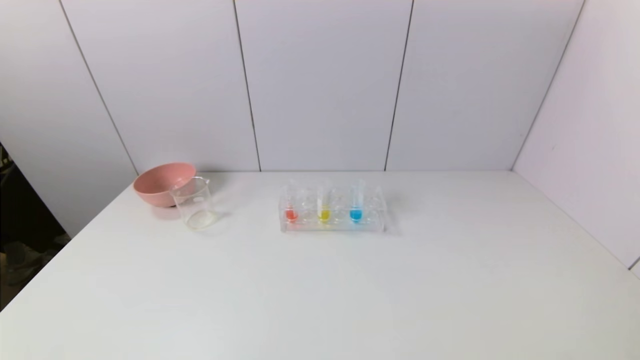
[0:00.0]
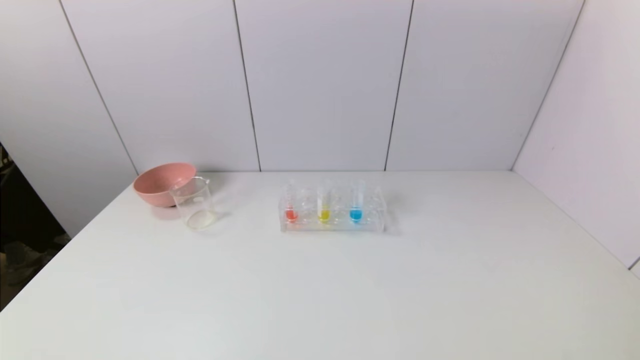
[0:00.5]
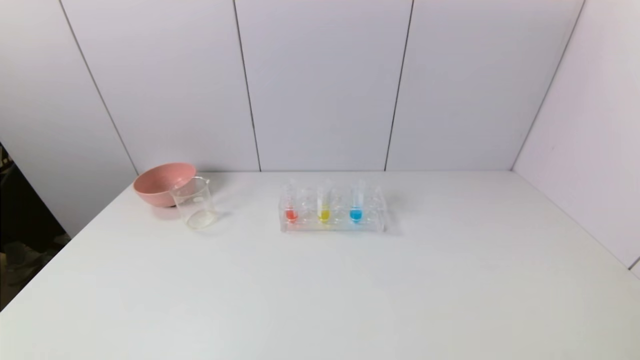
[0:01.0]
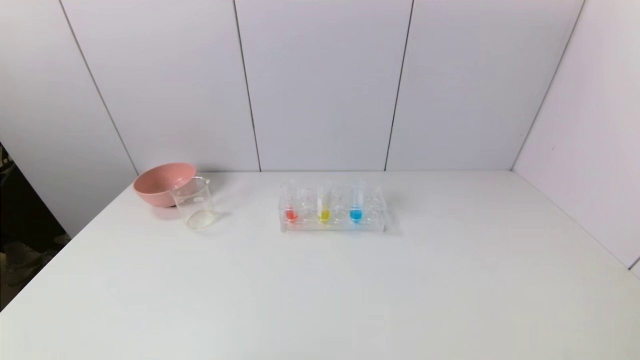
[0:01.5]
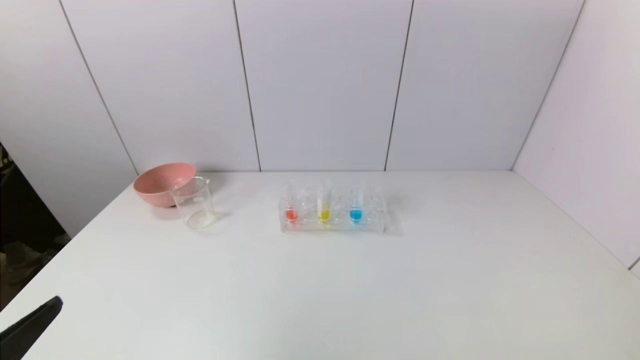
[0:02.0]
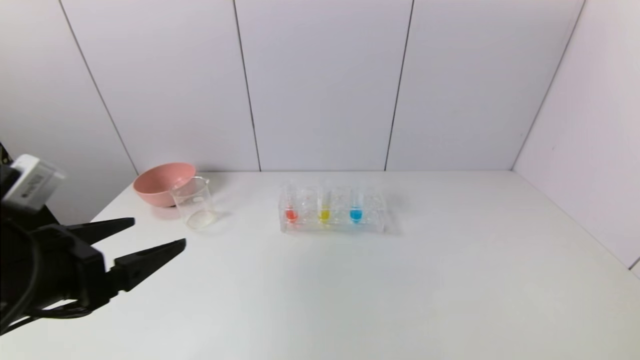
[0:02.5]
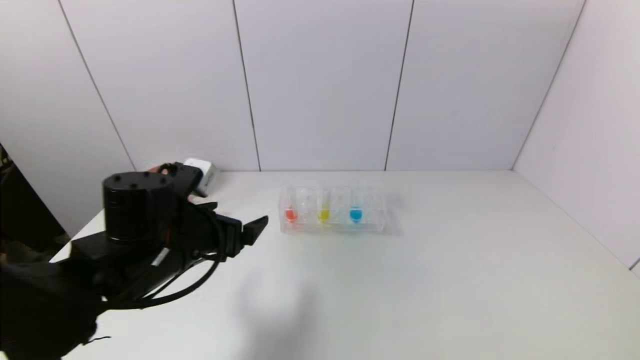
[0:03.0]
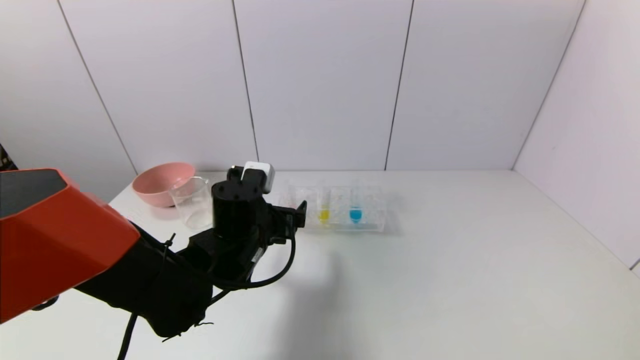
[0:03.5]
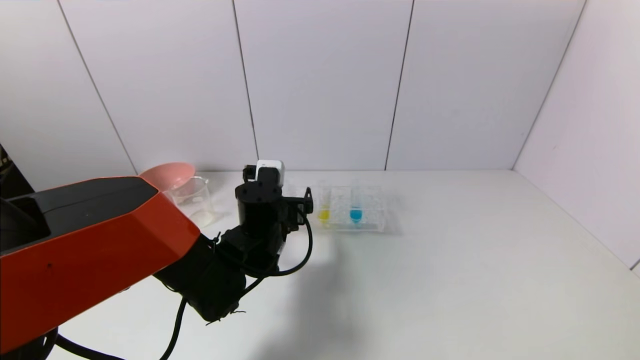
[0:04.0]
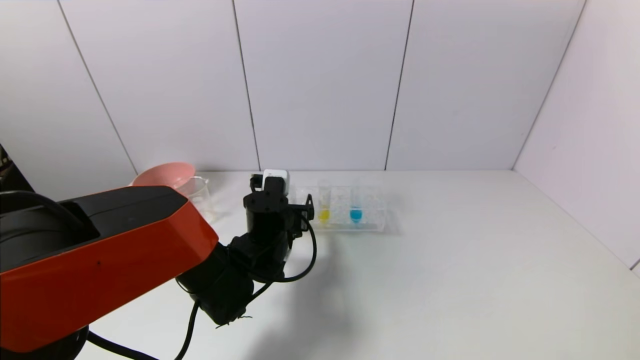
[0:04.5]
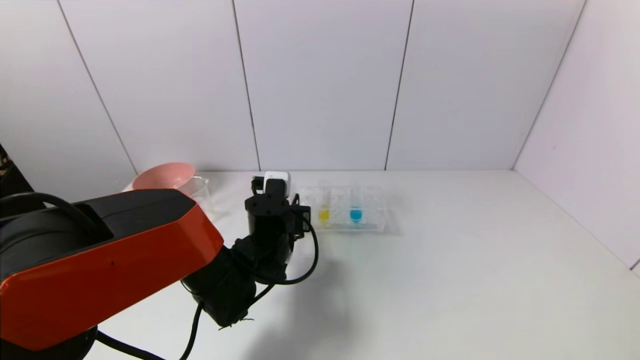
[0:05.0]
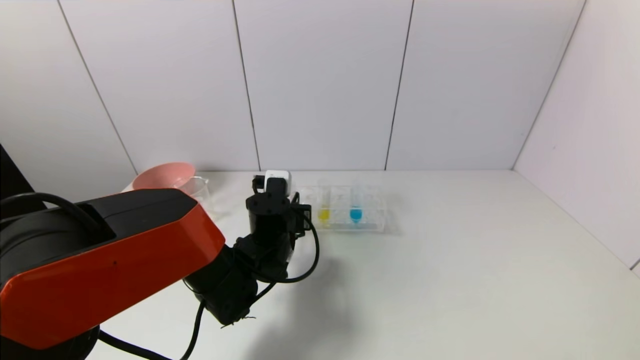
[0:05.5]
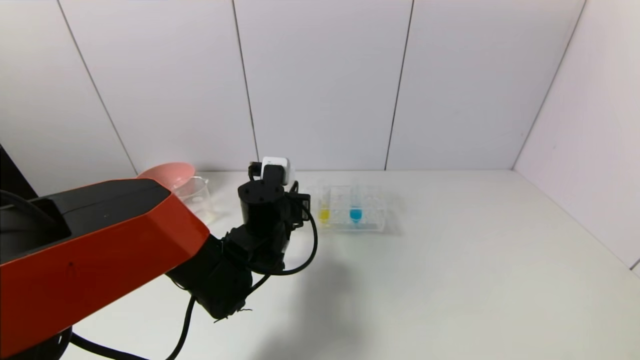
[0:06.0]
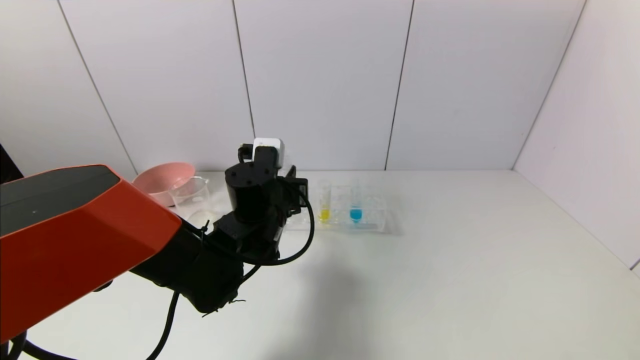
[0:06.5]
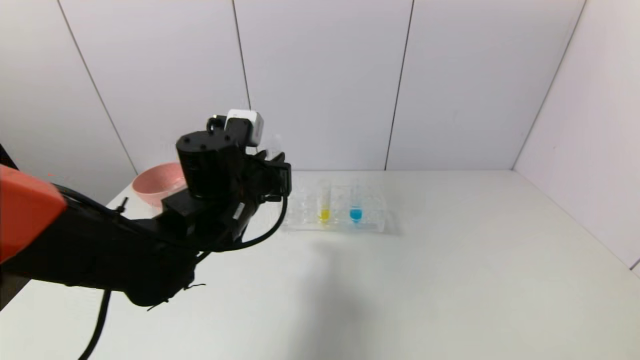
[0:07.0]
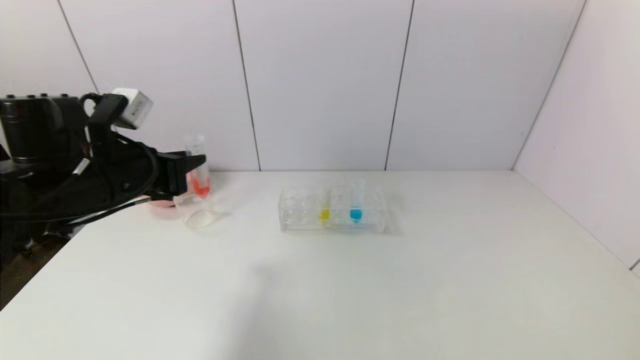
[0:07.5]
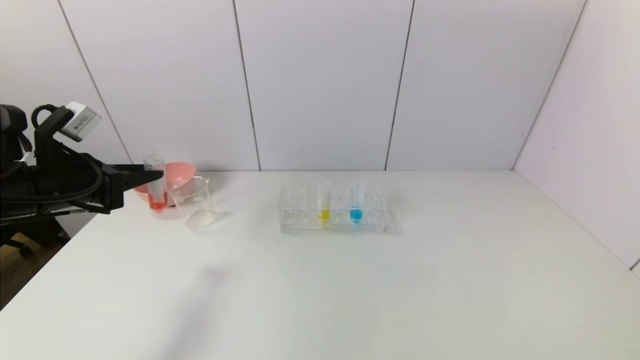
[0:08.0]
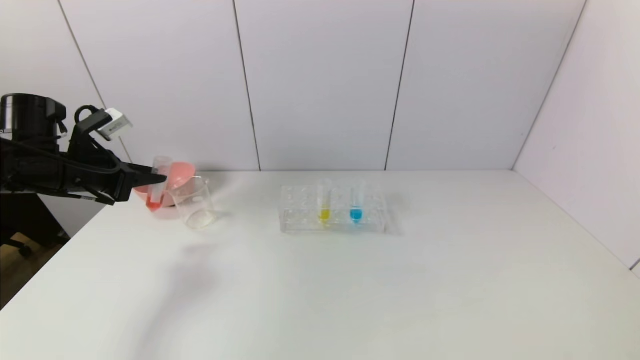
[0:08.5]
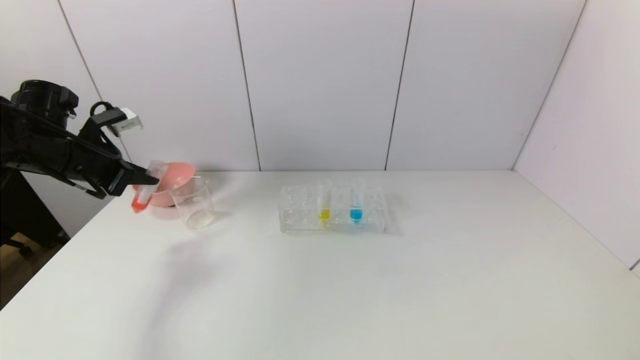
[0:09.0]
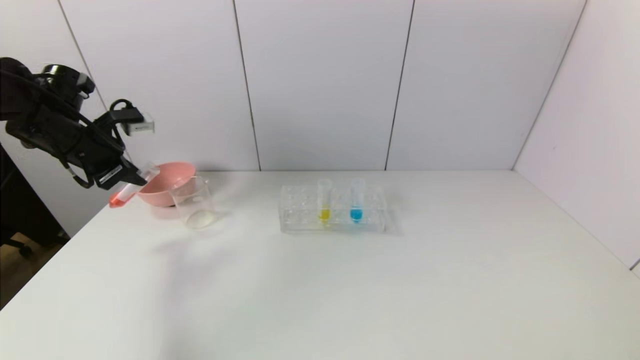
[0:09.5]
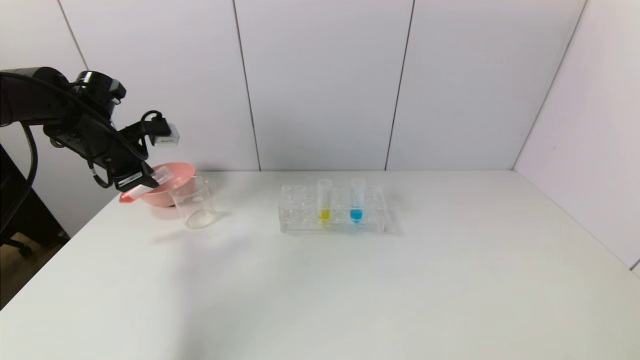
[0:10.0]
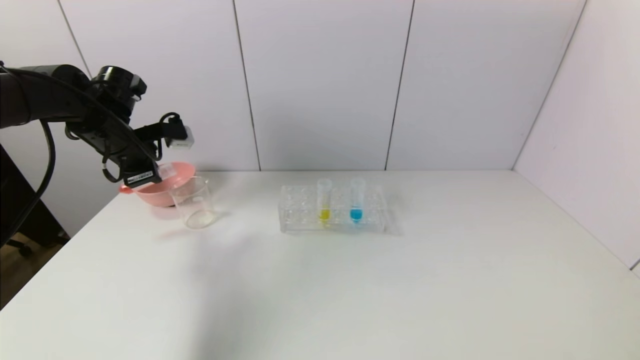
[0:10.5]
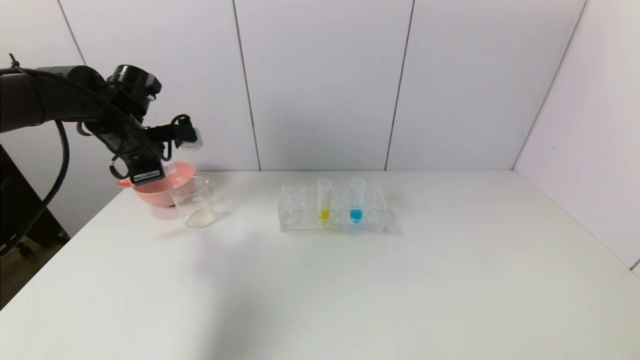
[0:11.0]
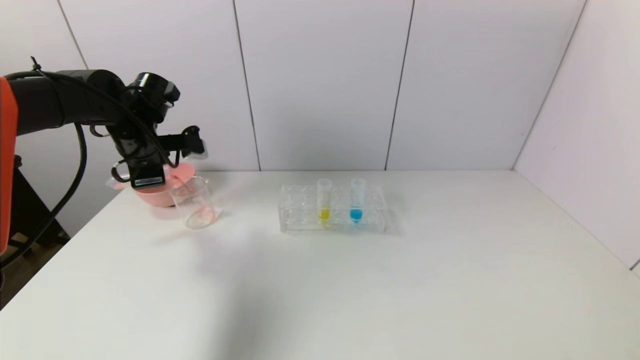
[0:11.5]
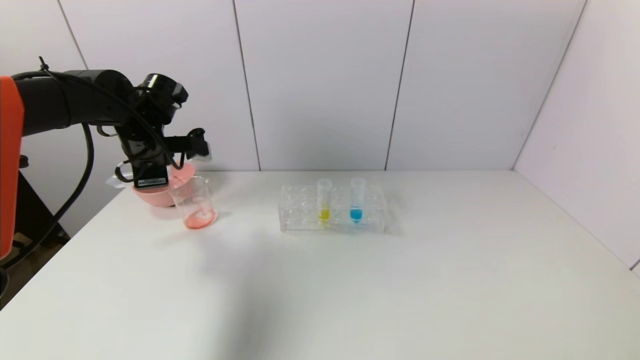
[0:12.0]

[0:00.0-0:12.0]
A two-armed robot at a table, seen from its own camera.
Task of the whole recording: pick up the test tube with yellow pigment and the test tube with red pigment by grippers and pour them into the beaker.
Step, 0:00.0 to 0:05.0: Grasp the red reagent with the left gripper.
0:00.0 to 0:02.0: The left gripper moves upward and forward, roughly 15 cm.
0:02.0 to 0:04.0: The left gripper goes about 35 cm forward and to the right.
0:04.0 to 0:06.0: The left gripper closes its fingers.
0:06.0 to 0:08.0: The left gripper travels to the left and upward by approximately 30 cm.
0:08.0 to 0:10.0: The left gripper heads forward, covering about 10 cm.
0:10.0 to 0:12.0: The left gripper travels to the right by about 5 cm.

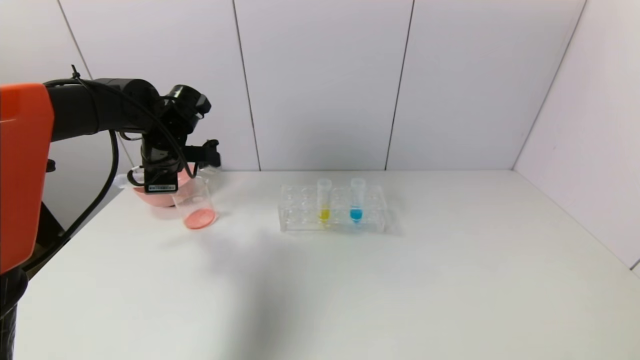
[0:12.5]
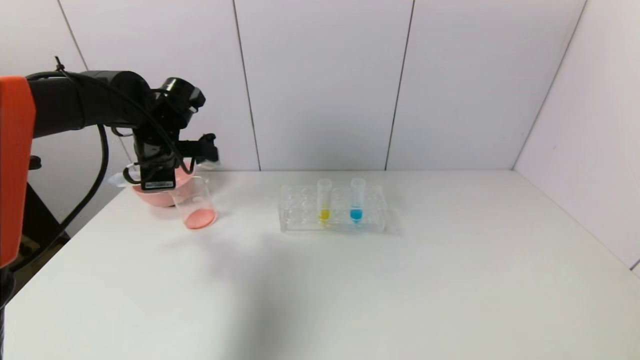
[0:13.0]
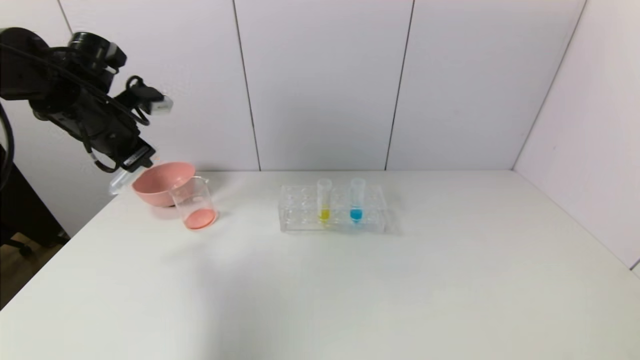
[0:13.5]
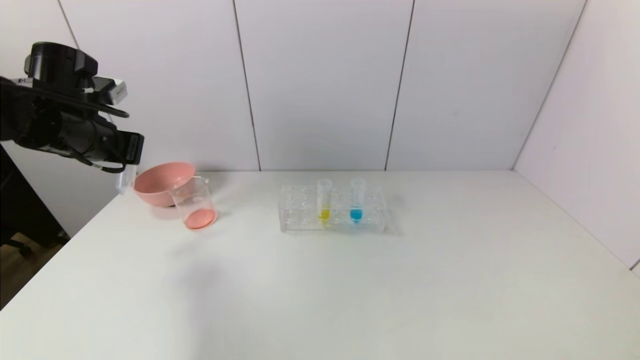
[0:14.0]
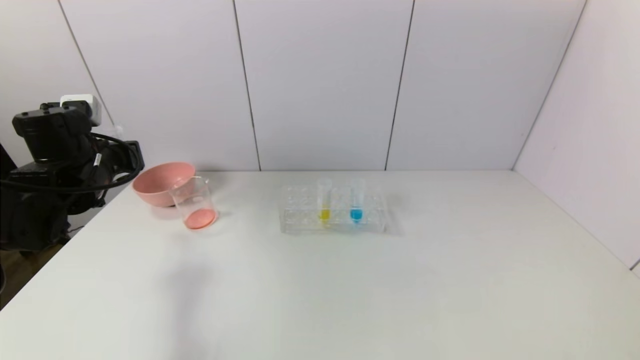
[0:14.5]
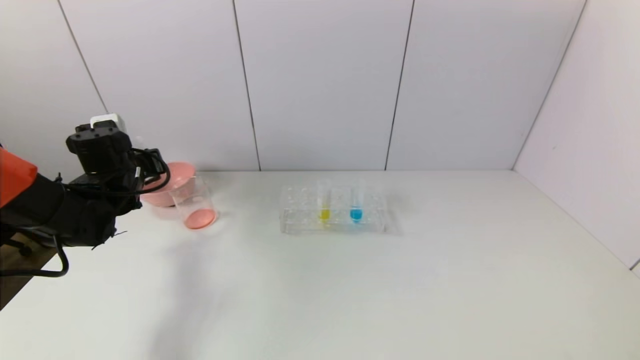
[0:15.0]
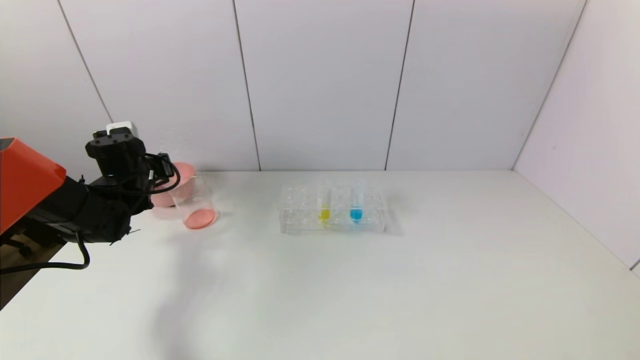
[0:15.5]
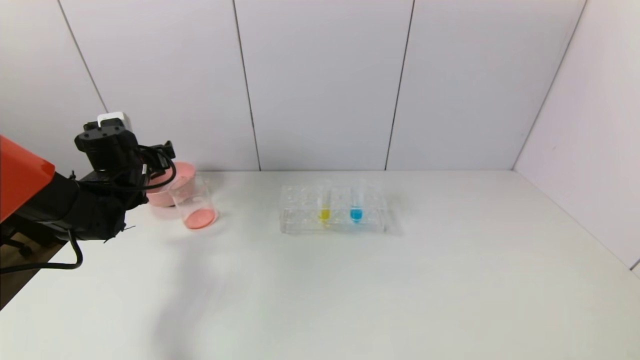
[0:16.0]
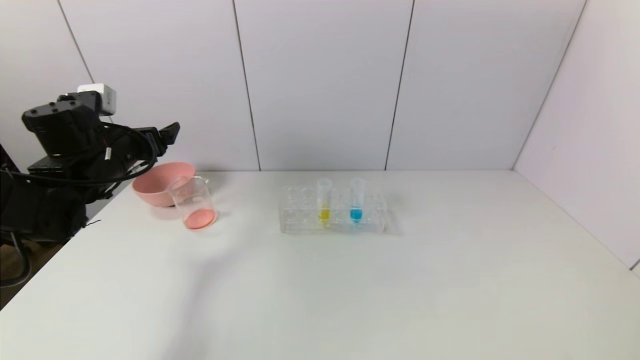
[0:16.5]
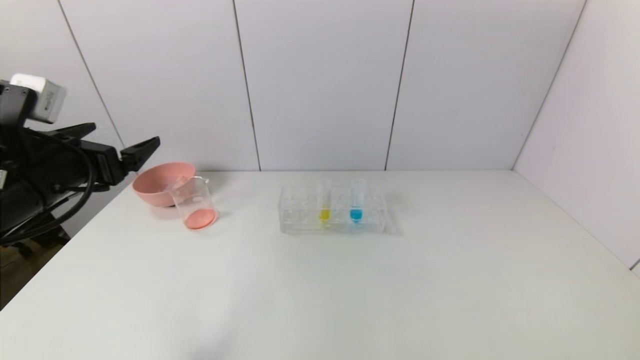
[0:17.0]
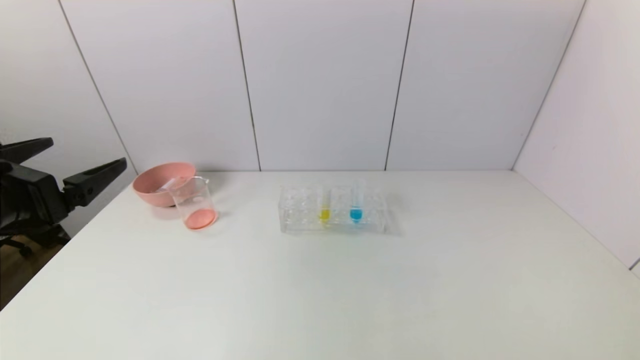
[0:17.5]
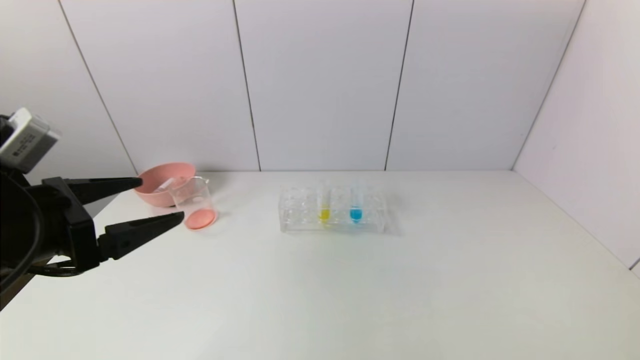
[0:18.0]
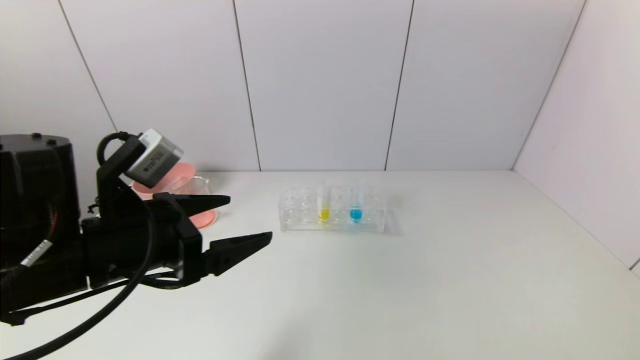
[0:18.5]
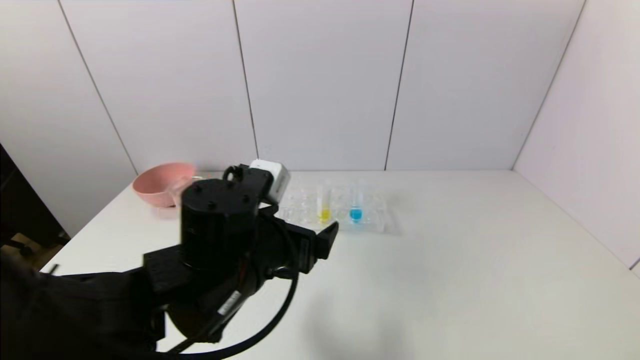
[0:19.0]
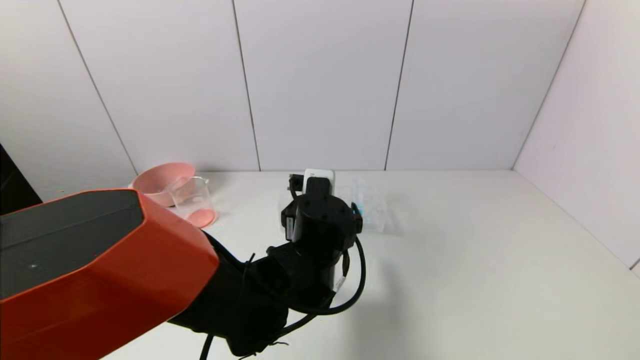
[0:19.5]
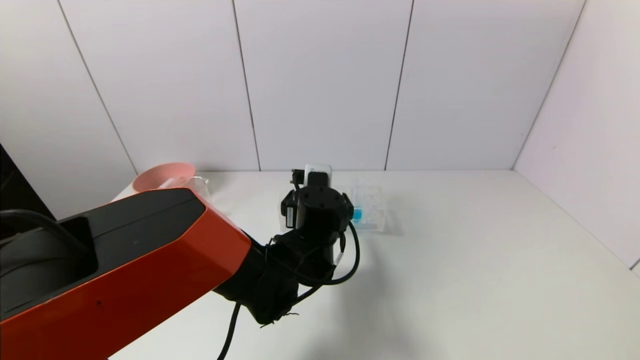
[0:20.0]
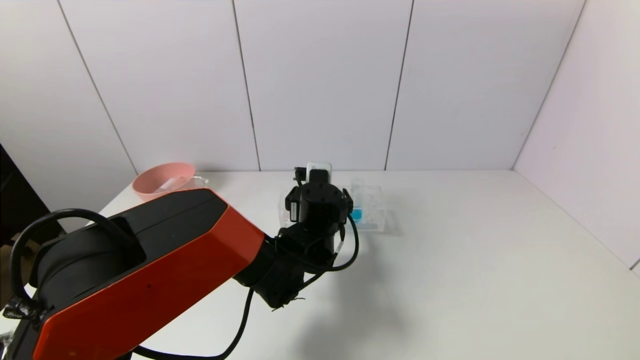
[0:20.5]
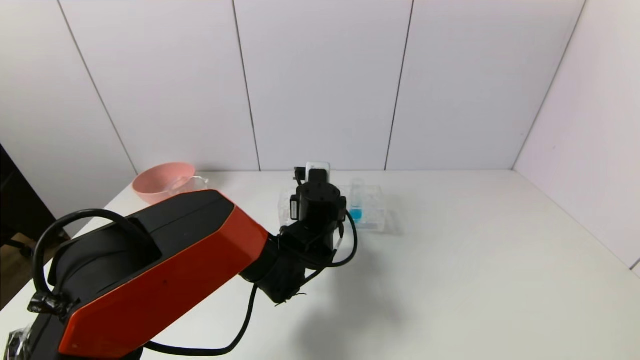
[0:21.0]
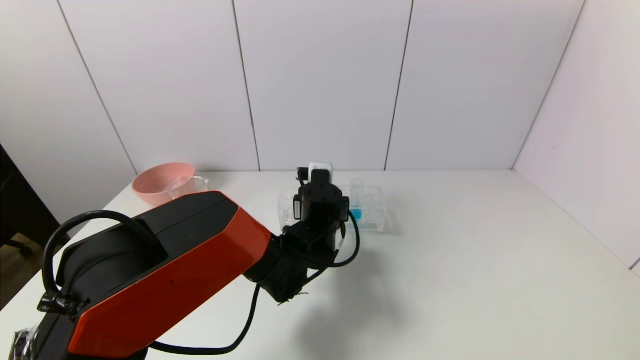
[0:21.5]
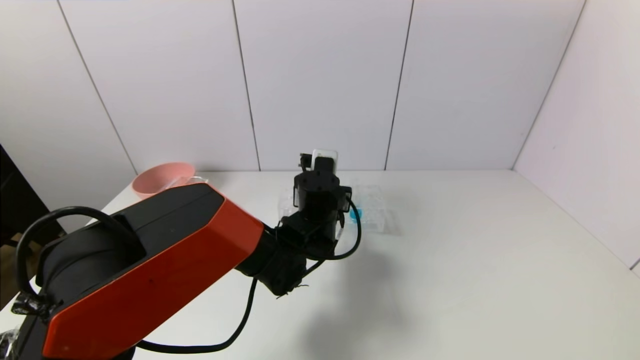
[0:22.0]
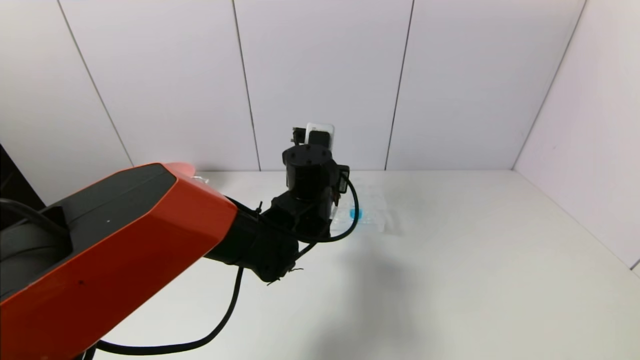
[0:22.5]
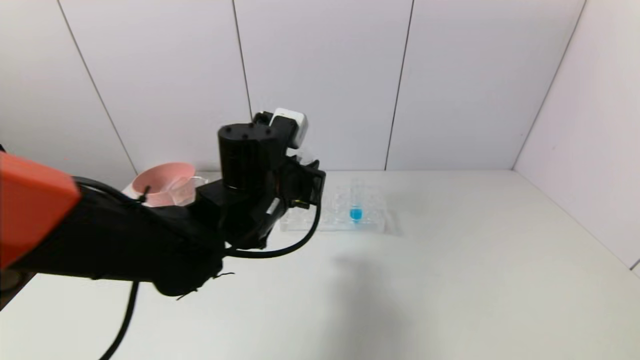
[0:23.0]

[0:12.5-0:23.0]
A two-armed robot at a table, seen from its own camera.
Task of the whole recording: pick up the test tube with yellow pigment and the test tube with red pigment by grippers and pour them into the beaker.
Step, 0:13.0 to 0:15.5: Place the test tube into the pink bowl with the left gripper.
Step, 0:16.0 to 0:21.0: Grasp the yellow reagent with the left gripper.
0:12.5 to 0:14.5: The left gripper moves to the left and backward, some 10 cm, and goes upward and returns, roughly 5 cm each way.
0:14.5 to 0:16.5: The left gripper goes forward and returns, about 10 cm each way, and opens.
0:16.5 to 0:19.0: The left gripper is displaced to the right and backward by about 25 cm.
0:19.0 to 0:21.0: The left gripper goes roughly 20 cm forward, to the right and downward, and closes its fingers.
0:21.0 to 0:23.0: The left gripper moves upward, to the left and backward, about 15 cm, and closes its fingers.
